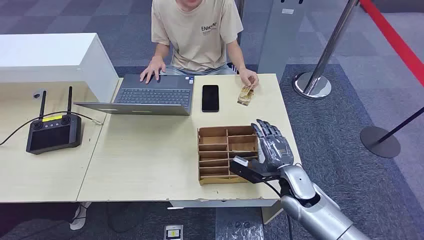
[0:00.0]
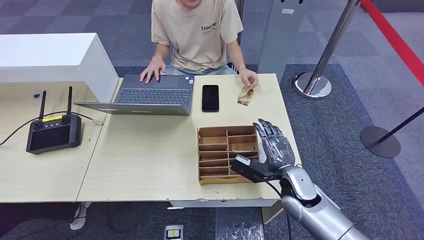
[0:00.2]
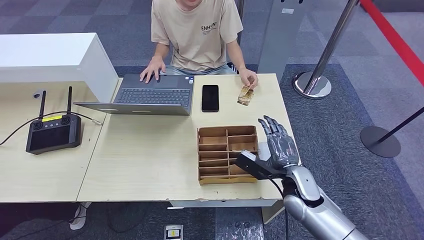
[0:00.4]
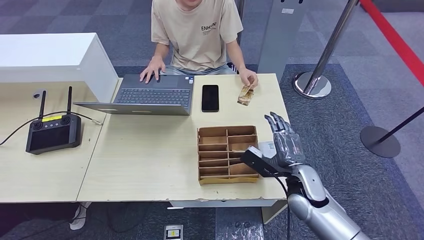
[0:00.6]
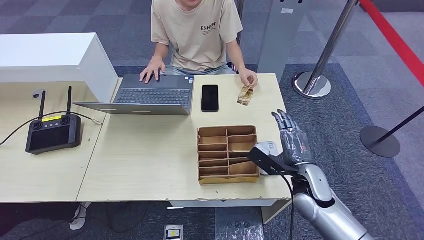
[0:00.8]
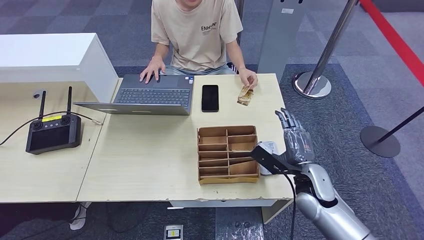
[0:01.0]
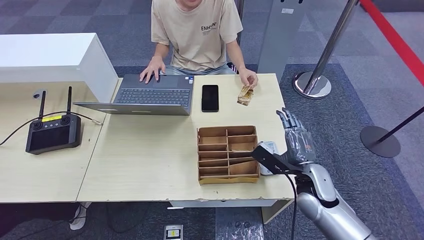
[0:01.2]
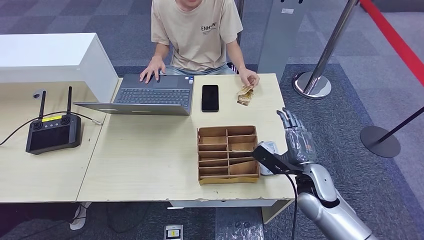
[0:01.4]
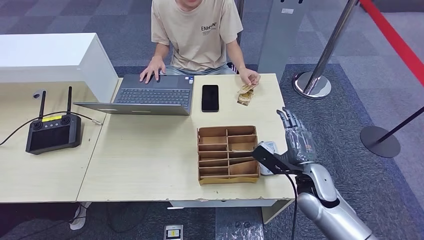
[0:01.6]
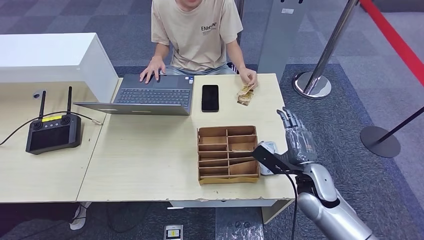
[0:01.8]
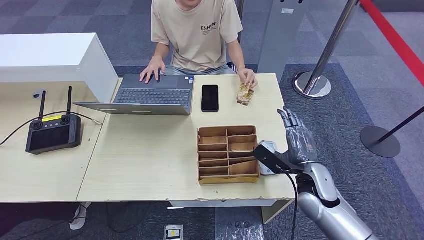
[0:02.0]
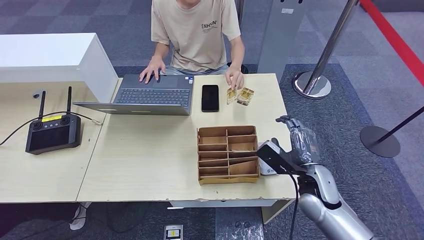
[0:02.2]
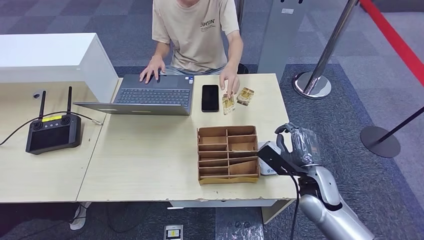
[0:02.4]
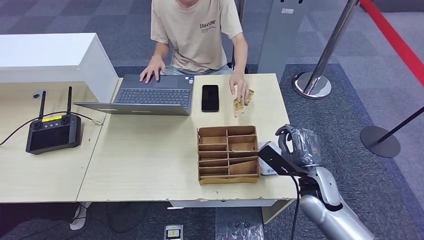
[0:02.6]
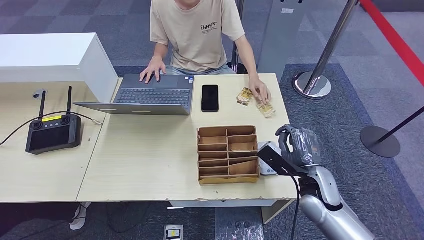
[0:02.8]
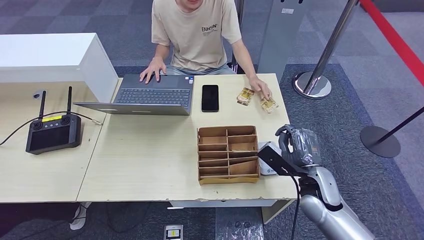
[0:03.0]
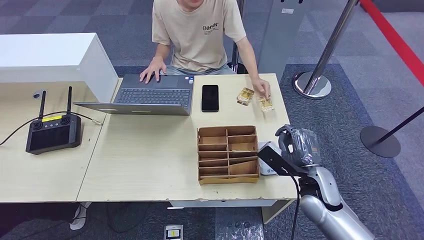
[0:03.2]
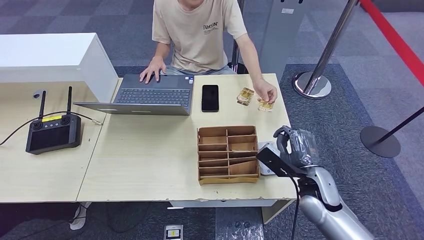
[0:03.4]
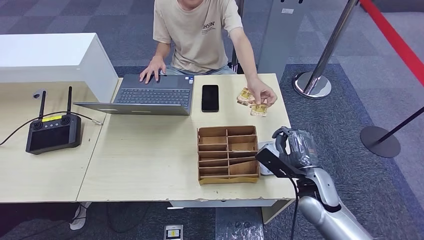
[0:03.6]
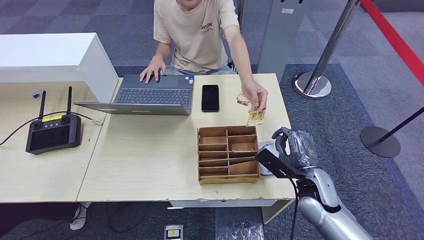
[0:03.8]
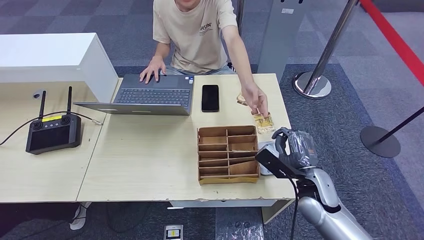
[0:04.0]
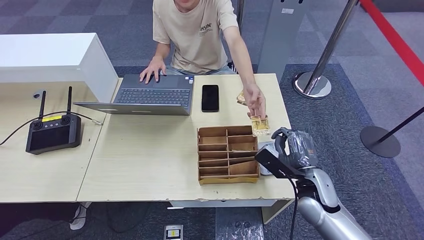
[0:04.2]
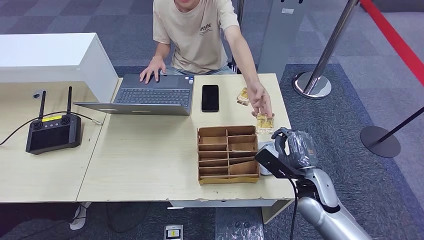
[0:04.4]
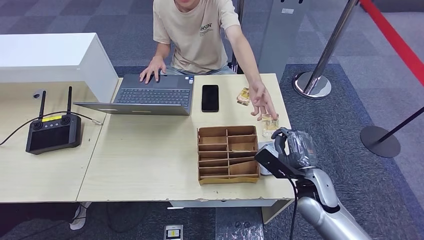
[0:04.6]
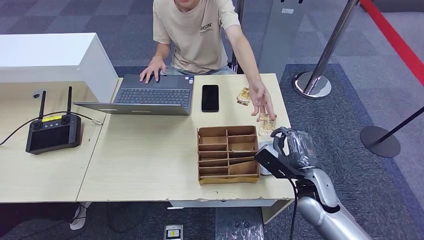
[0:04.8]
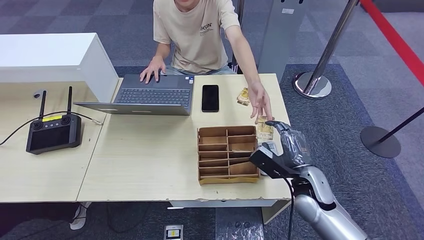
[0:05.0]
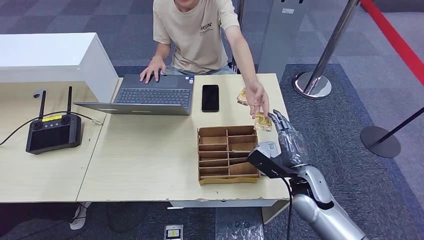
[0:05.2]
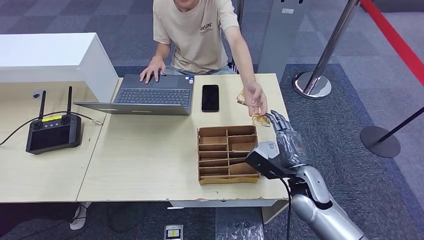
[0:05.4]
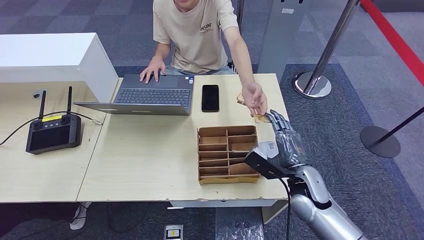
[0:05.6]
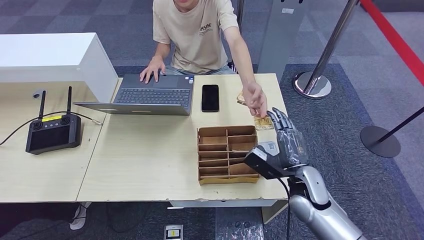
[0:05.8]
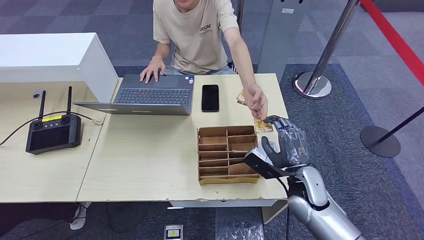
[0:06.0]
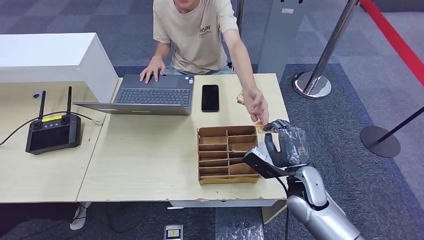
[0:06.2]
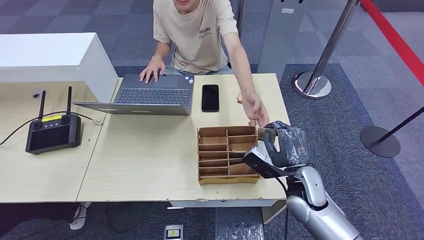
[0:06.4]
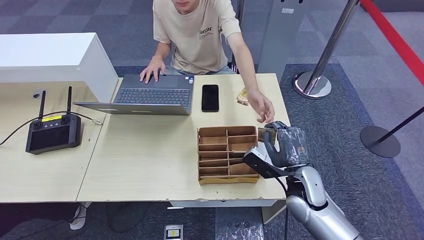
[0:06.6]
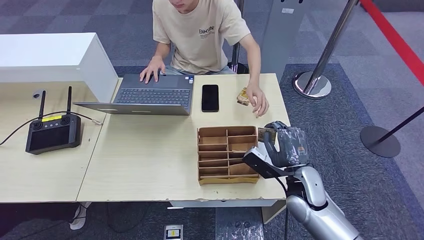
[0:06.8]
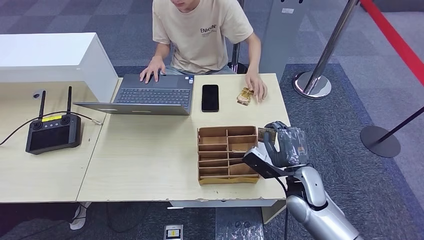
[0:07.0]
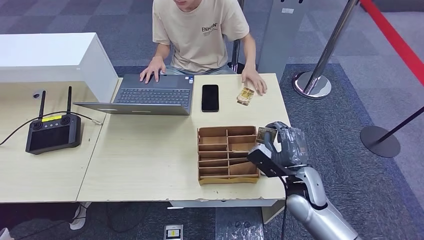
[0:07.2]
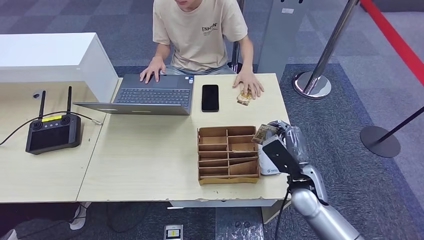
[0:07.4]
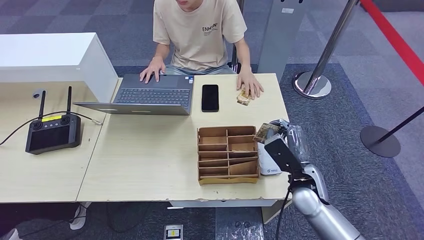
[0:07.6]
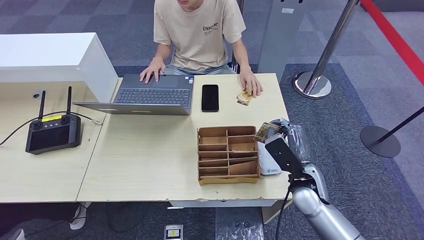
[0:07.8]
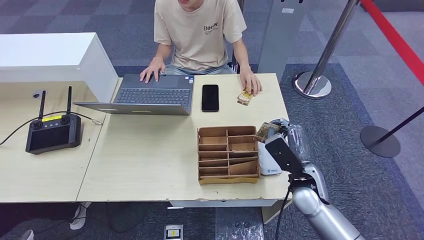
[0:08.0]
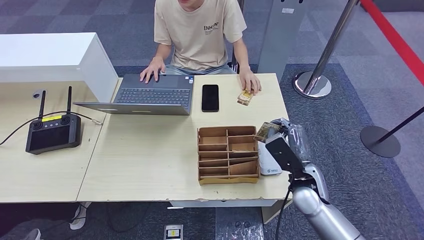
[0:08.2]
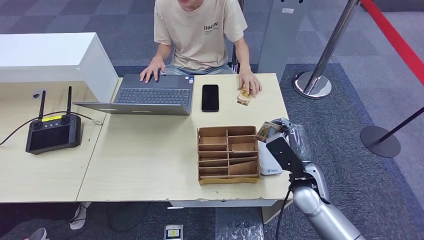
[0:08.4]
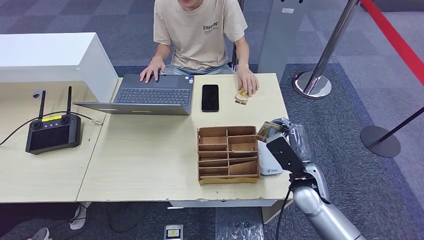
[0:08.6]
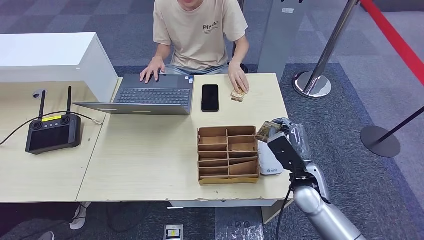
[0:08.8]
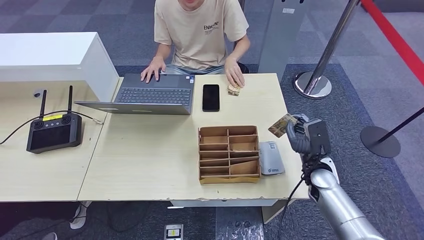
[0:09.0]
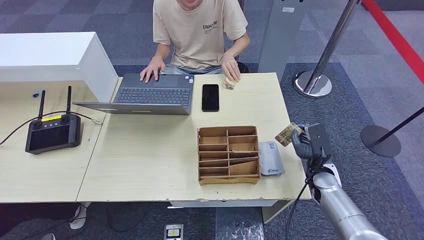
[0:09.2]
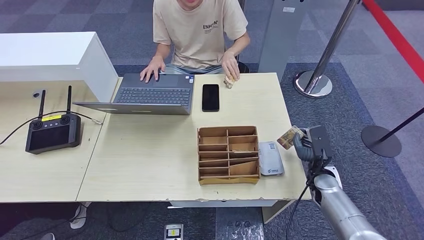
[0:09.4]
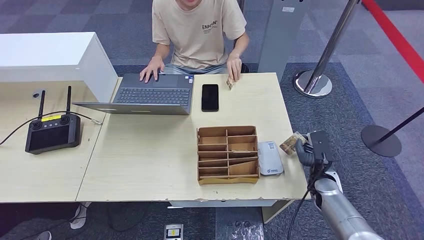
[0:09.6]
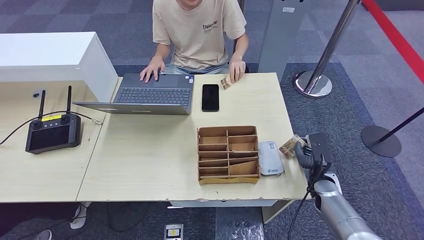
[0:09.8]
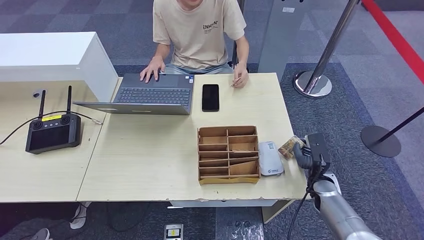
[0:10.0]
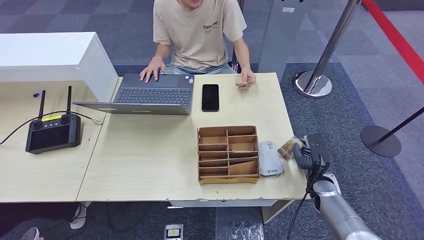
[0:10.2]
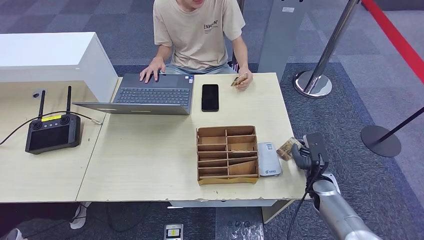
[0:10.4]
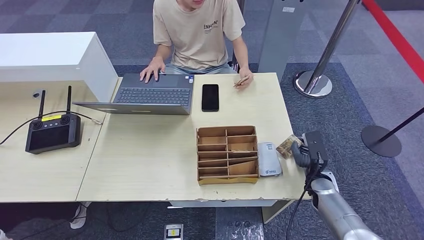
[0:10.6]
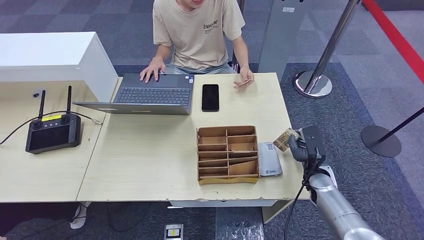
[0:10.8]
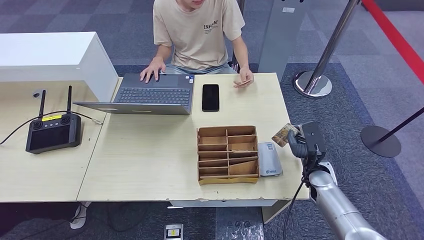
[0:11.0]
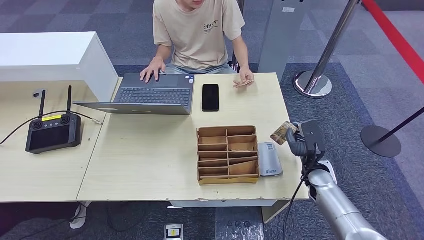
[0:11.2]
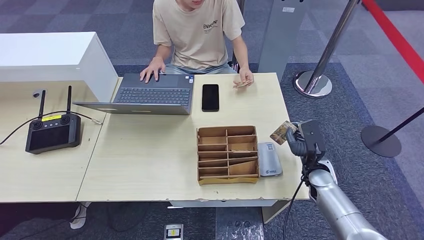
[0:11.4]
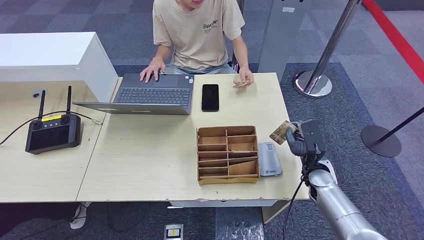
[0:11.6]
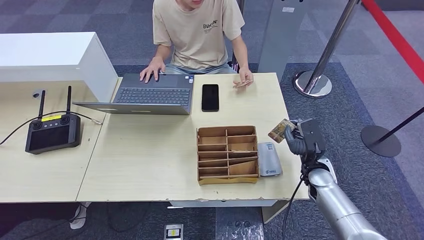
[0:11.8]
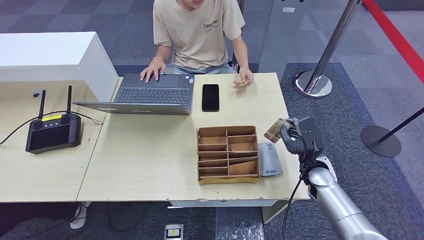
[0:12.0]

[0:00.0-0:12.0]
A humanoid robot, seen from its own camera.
Step, 0:00.0 to 0:06.2: Take the ID card from the person's hand.
0:01.6 to 0:04.4: Both hands stay about where they are.
0:04.4 to 0:06.0: The hands make only small movements.
0:07.6 to 0:09.0: The right hand goes about 5 cm to the right.
0:09.0 to 0:10.4: The right hand heads downward, covering about 5 cm.
0:10.4 to 0:12.0: The right hand shifts about 5 cm upward.

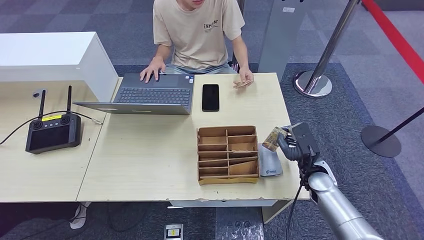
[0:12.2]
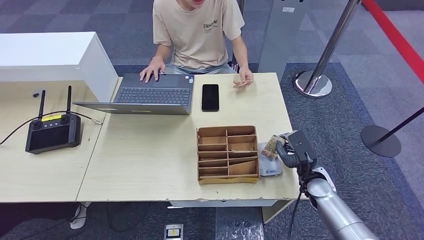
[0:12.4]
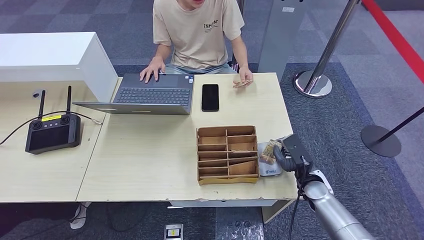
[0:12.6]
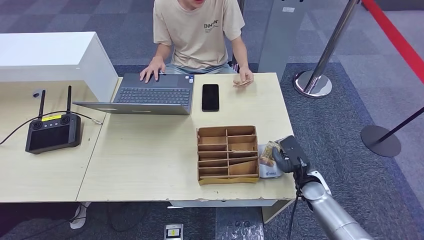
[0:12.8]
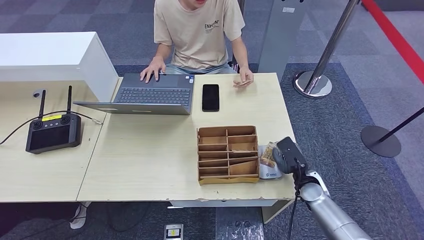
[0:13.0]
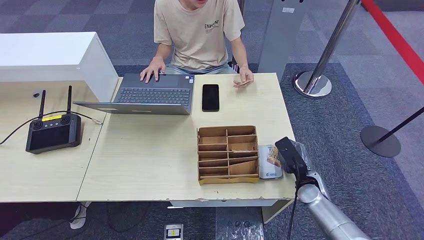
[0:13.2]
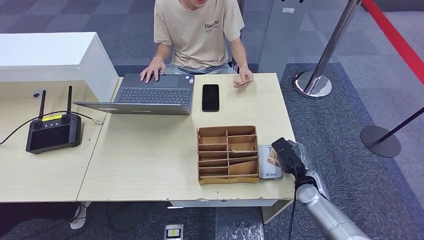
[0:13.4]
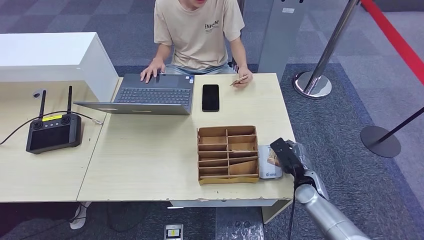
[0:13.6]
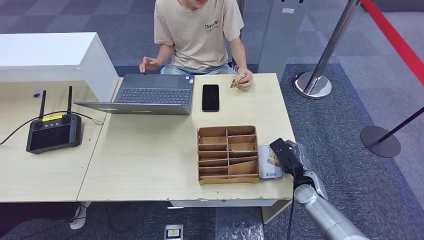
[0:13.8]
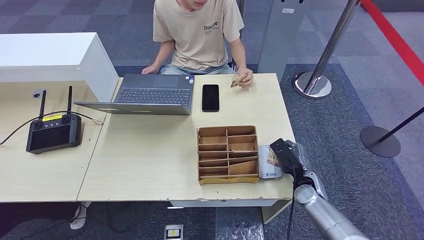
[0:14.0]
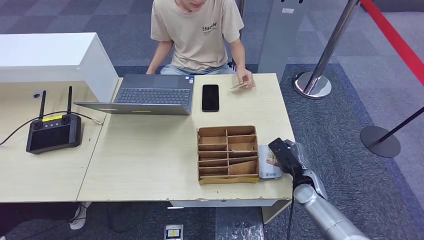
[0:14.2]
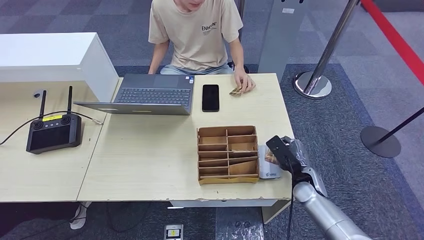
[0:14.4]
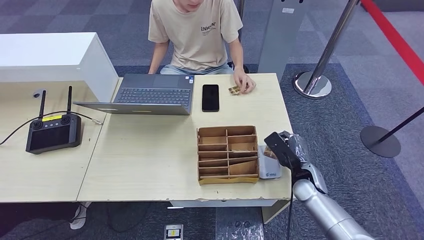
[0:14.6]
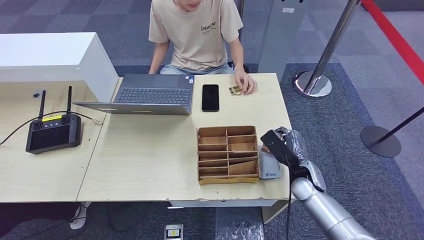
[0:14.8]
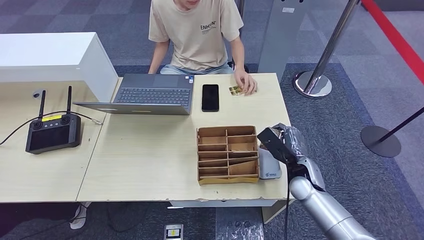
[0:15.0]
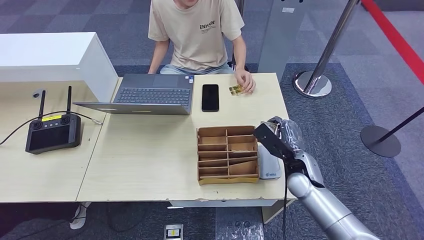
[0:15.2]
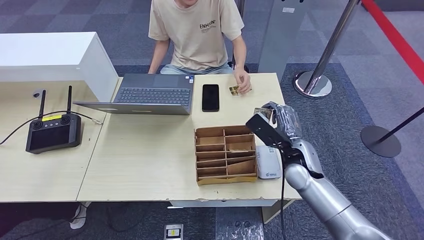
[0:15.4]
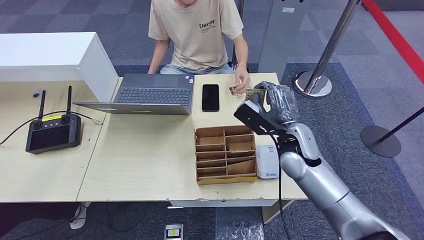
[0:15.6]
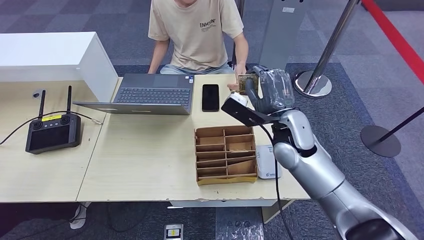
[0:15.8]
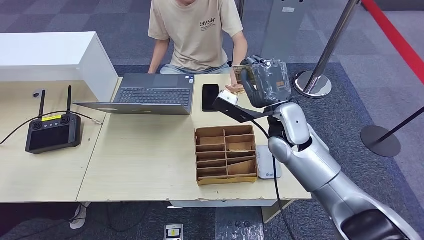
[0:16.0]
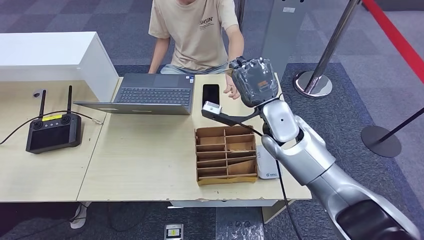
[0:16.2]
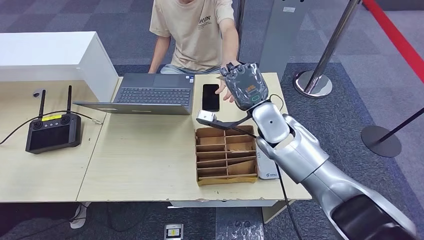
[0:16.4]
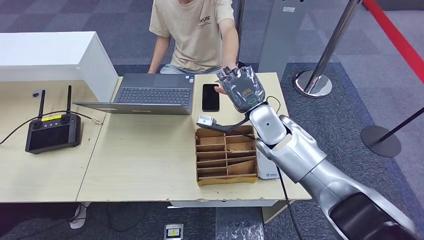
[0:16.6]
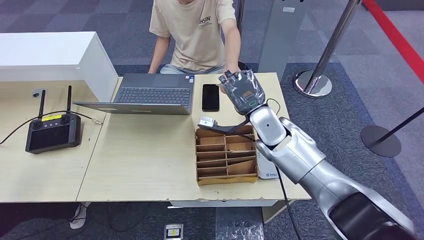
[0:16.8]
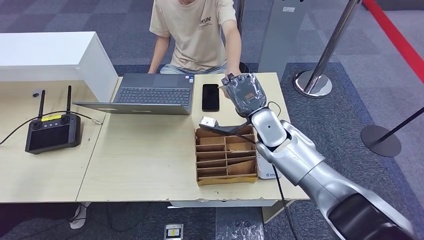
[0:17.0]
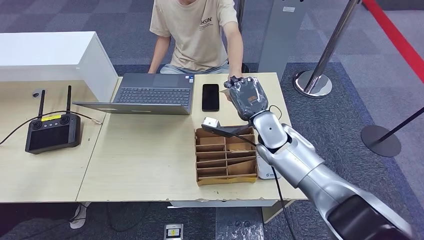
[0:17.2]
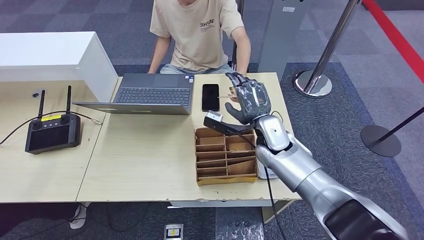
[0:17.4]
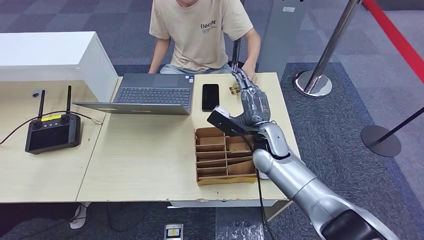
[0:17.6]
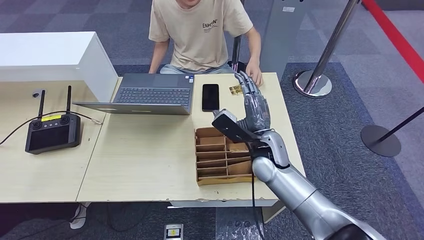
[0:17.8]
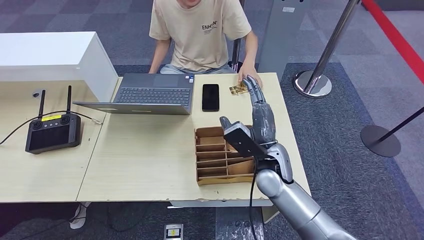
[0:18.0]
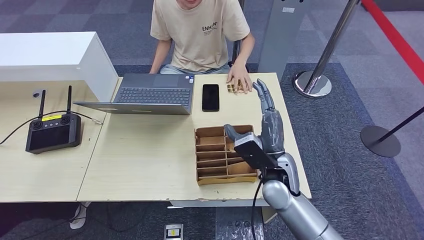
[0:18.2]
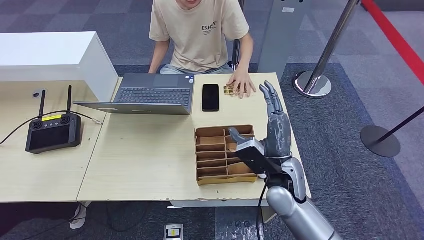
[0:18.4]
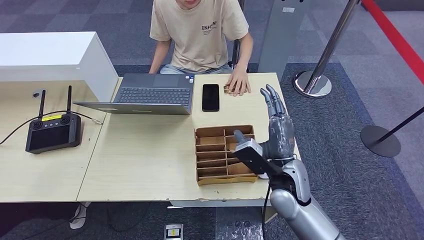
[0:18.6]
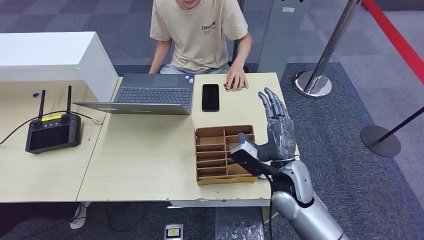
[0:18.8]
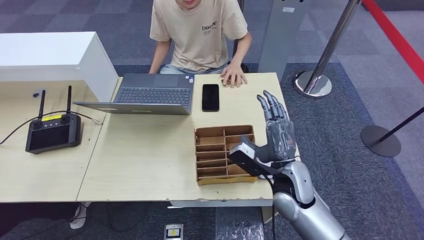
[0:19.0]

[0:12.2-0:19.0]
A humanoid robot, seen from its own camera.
Step, 0:14.0 to 0:18.6: Hand the ID card to the person.
0:13.6 to 0:15.0: The right hand shifts about 5 cm upward.
0:15.0 to 0:16.2: The right hand is displaced upward and to the left by roughly 20 cm.
0:16.2 to 0:17.6: The right hand heads downward, covering about 10 cm.
0:17.6 to 0:19.0: The right hand is displaced backward by roughly 10 cm.
